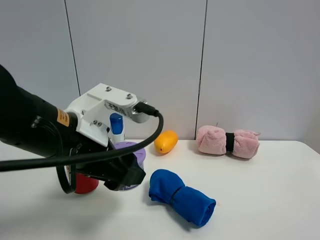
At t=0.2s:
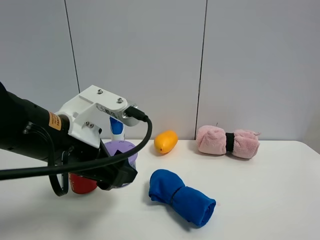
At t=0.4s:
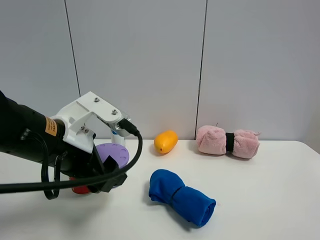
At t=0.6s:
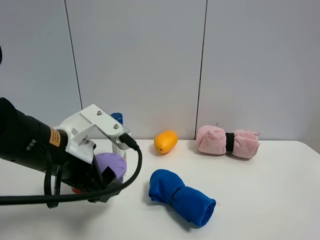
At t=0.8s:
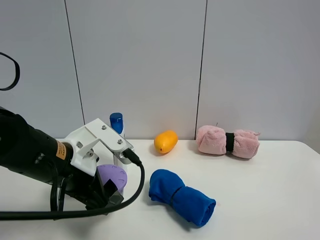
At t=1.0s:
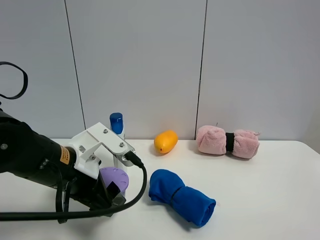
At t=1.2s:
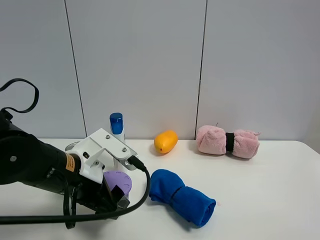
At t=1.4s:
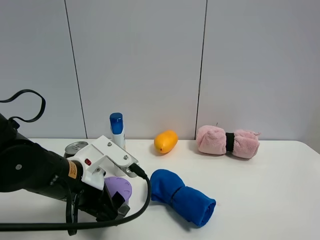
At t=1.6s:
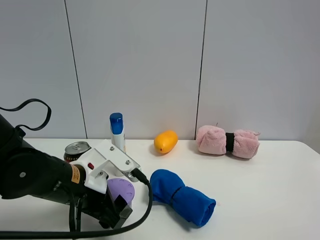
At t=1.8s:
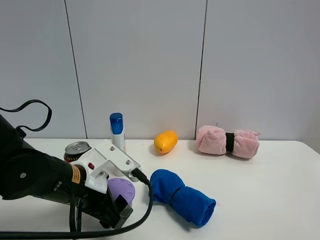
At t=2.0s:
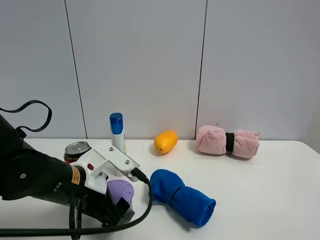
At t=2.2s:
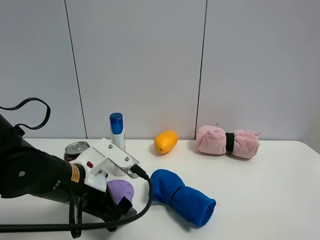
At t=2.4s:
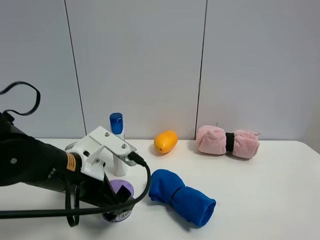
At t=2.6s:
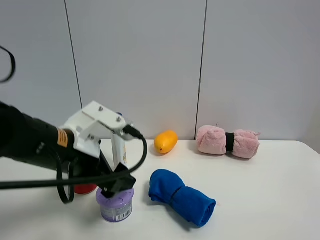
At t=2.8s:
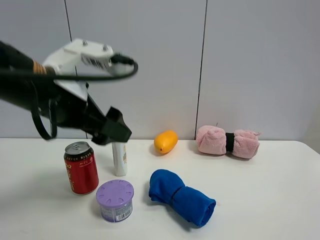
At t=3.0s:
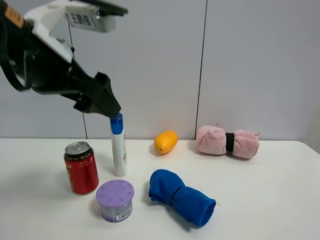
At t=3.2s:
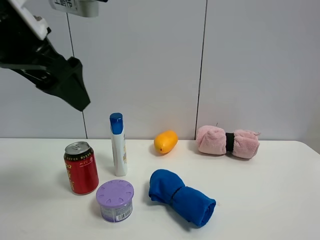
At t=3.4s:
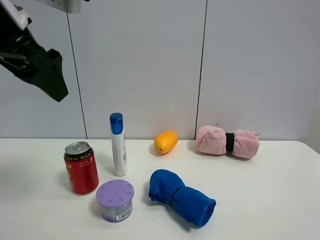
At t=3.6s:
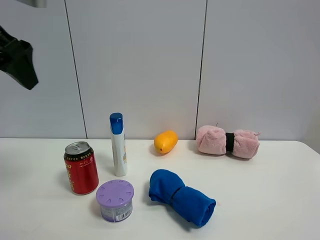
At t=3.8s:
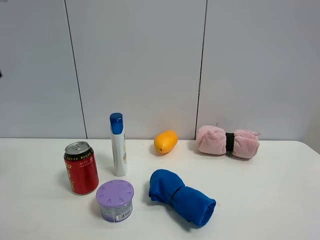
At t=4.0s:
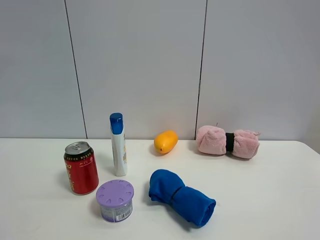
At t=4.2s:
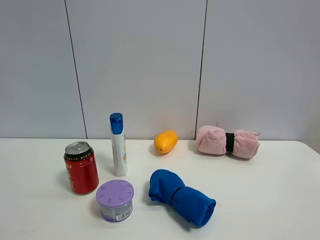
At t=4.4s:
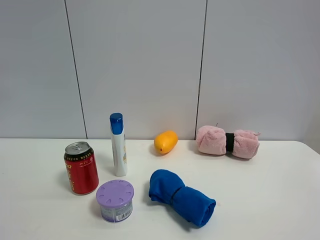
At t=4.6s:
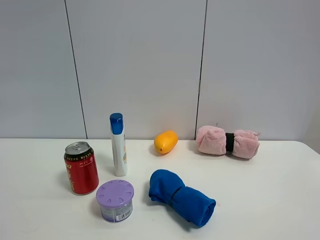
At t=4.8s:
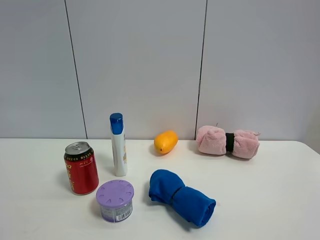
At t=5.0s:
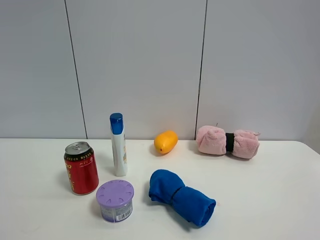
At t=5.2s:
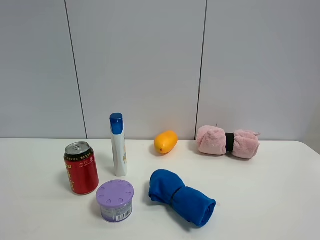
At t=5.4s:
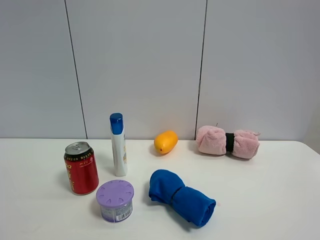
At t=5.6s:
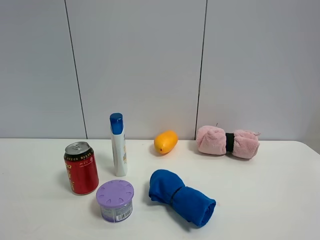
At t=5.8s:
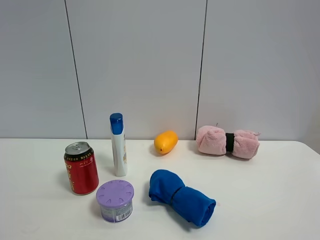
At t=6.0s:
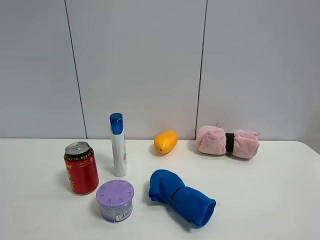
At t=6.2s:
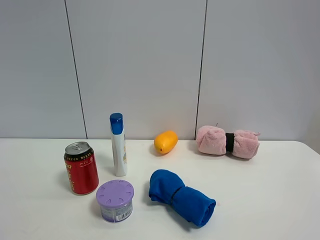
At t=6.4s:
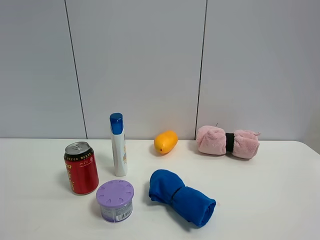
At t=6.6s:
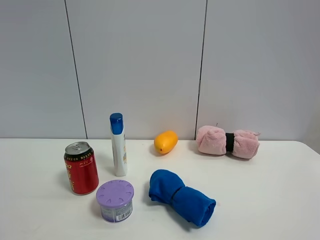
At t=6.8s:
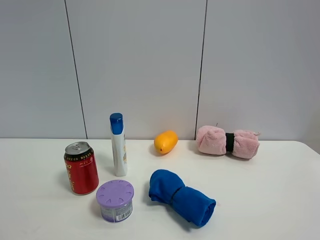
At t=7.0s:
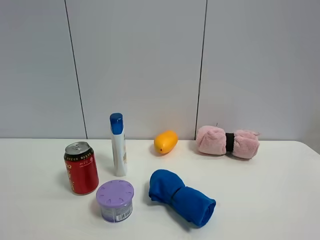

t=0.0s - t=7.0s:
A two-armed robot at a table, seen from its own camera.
Task of the whole recording: the gripper move the object.
Step, t=0.0s - t=2.4s: Place the Incense box on the table with the left gripper.
t=0.0s - t=1.4s: The left gripper moves downward, approximately 10 cm.
t=1.4s - t=2.8s: The left gripper is displaced upward by roughly 15 cm, and opens its fingers.
t=2.8s - t=4.2s: The left gripper travels to the left, upward and backward by about 25 cm.
t=5.6s - t=7.0s: Neither gripper changes place.

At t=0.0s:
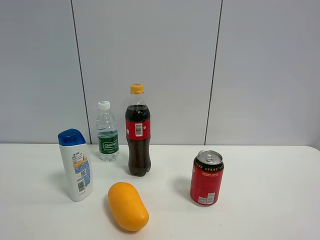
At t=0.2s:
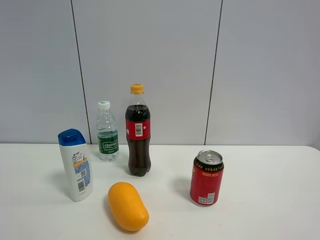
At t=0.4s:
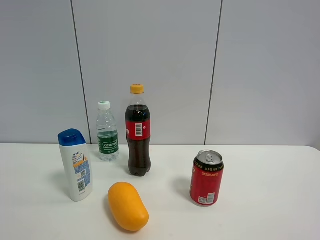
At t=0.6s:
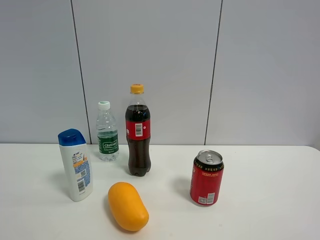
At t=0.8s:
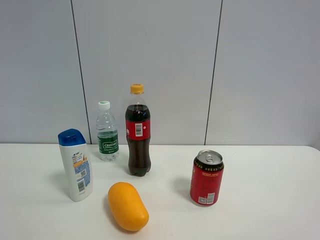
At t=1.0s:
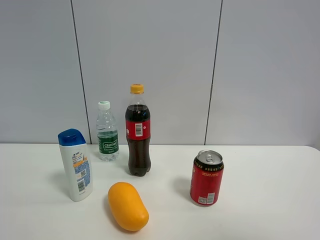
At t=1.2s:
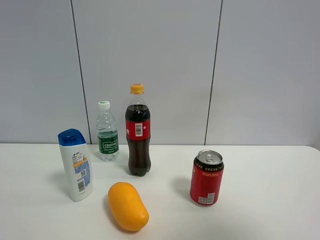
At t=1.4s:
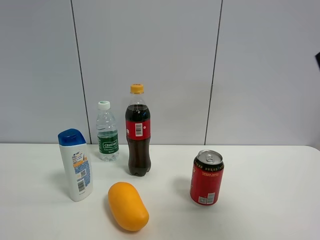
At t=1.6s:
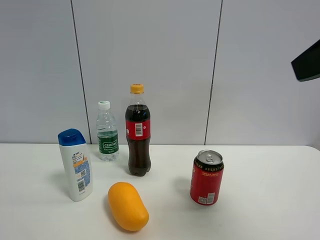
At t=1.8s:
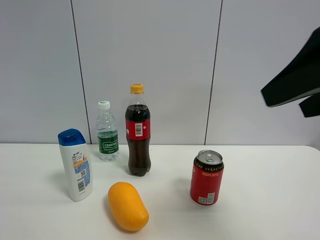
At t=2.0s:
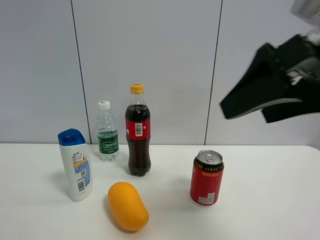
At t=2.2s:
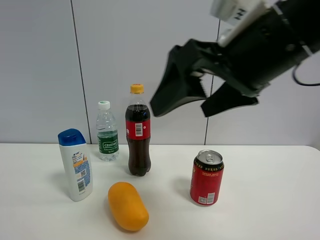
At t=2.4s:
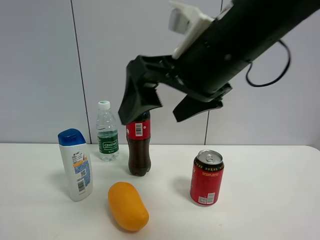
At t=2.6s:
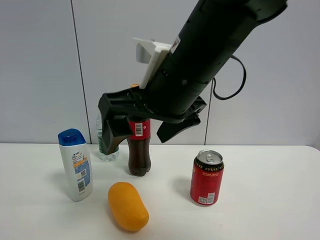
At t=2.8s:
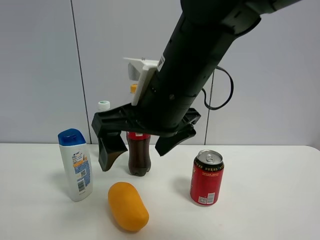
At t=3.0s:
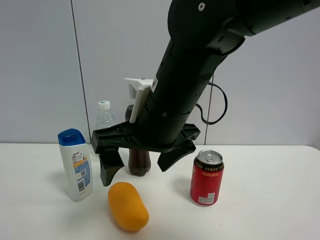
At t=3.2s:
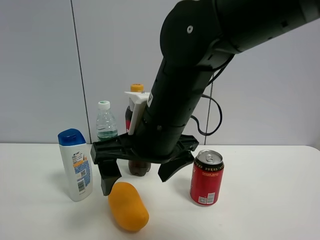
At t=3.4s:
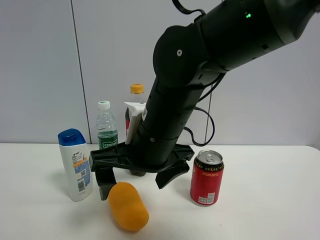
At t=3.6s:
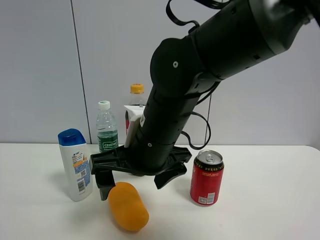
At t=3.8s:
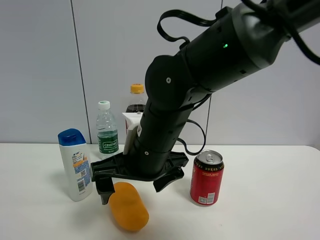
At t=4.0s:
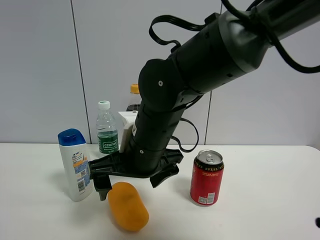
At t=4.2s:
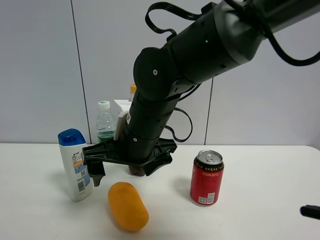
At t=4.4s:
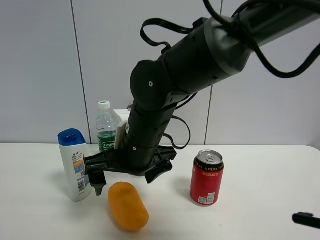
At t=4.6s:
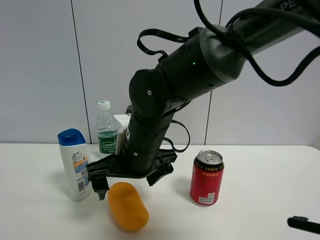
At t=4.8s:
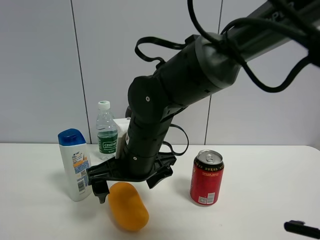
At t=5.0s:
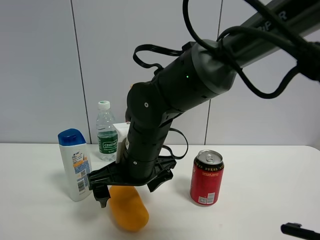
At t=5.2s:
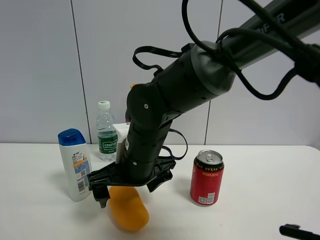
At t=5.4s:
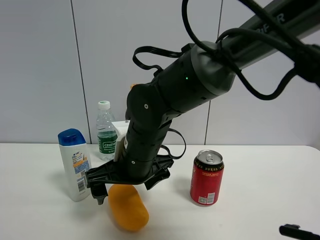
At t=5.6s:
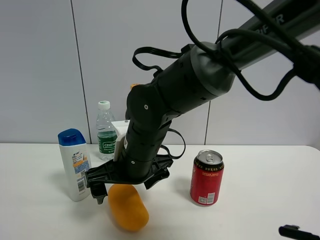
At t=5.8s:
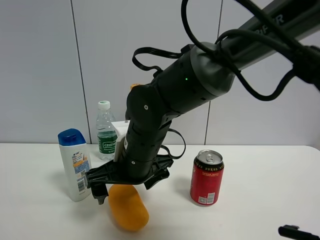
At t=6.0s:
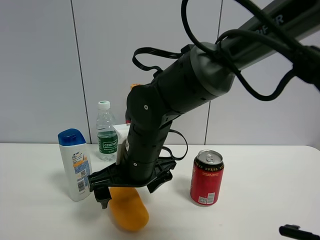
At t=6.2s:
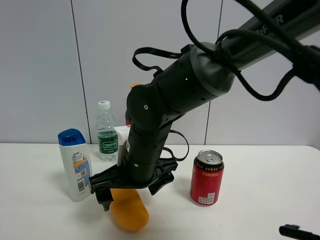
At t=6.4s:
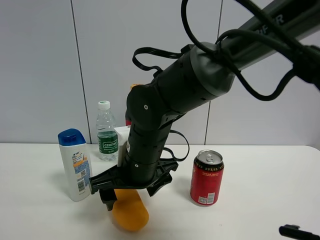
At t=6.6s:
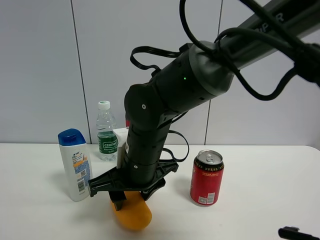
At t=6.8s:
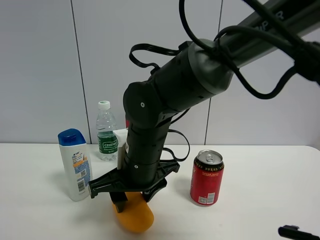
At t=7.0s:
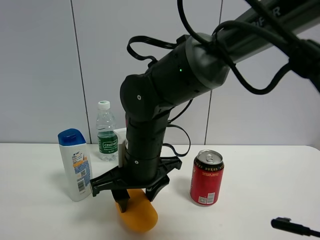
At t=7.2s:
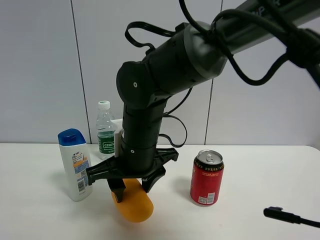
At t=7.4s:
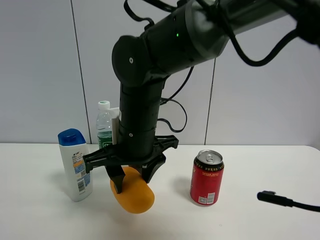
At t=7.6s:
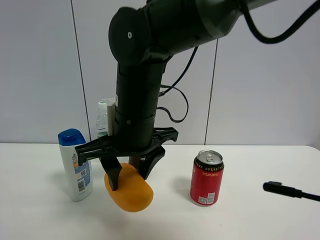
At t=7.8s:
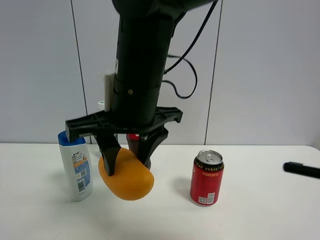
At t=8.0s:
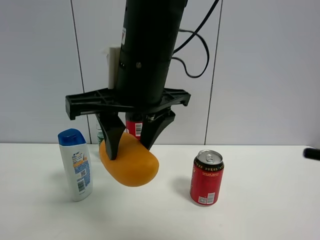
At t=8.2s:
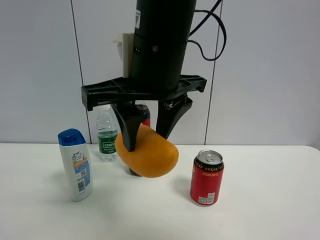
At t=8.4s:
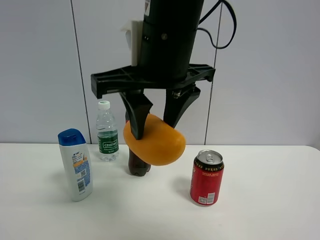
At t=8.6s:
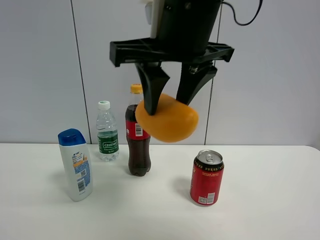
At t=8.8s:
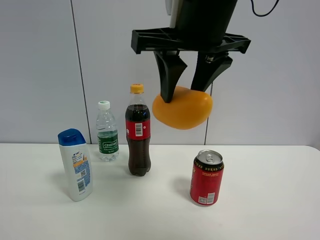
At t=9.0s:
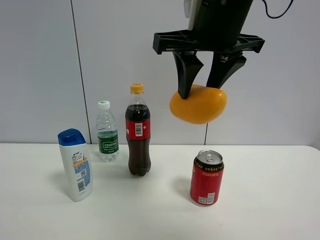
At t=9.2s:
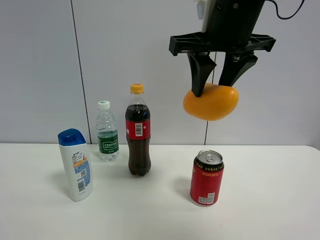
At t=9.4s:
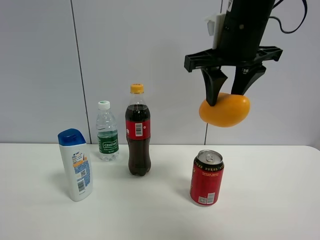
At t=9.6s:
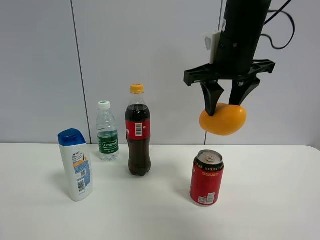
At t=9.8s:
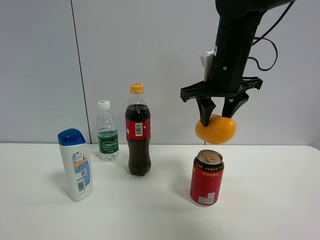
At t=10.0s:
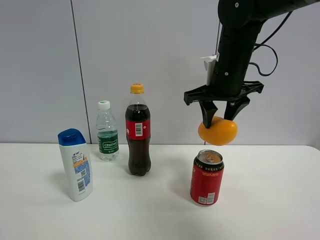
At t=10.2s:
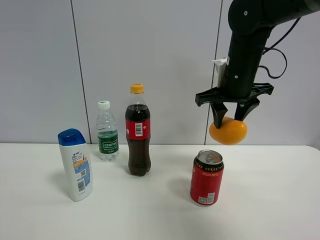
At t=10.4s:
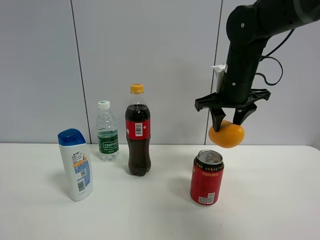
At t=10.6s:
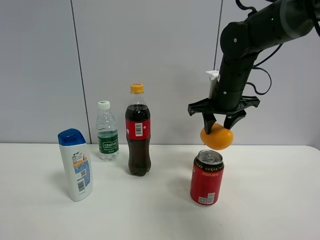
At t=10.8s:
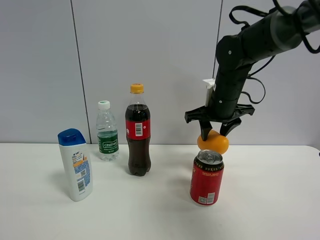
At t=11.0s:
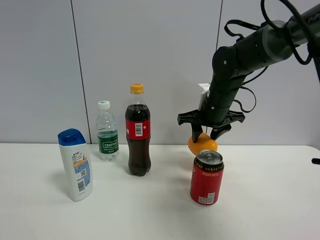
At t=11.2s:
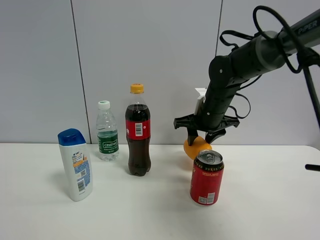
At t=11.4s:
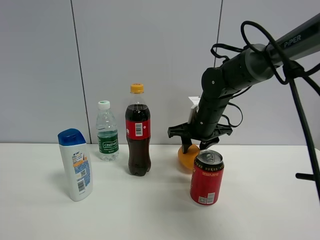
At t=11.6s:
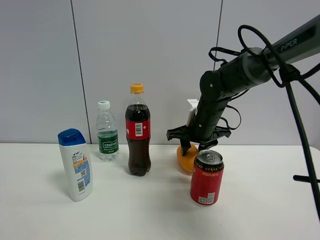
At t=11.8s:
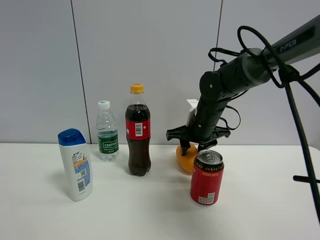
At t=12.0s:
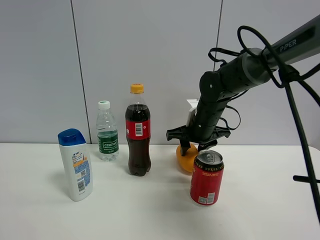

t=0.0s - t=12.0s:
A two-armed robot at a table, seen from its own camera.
Task of the whole recording: the gripper move the object.
Step, t=0.0s - t=6.6s: Grasp the mango with the right gripper.
t=0.0s - t=1.6s: The right gripper goes roughly 15 cm forward.
t=1.6s - t=3.0s: The right gripper travels to the left and downward by some 25 cm.
t=3.0s - t=4.4s: The right gripper shifts roughly 5 cm downward.
t=4.4s - t=6.0s: The grippers stay close to where they were, moving slightly.
t=6.0s - t=7.6s: The right gripper is displaced upward by some 10 cm, and closes its fingers.
t=7.6s - t=9.0s: The right gripper is displaced upward and to the right by some 20 cm.
t=9.0s - t=10.4s: The right gripper goes some 20 cm forward, downward and to the right.
t=10.4s - t=12.0s: The right gripper shifts about 10 cm downward.

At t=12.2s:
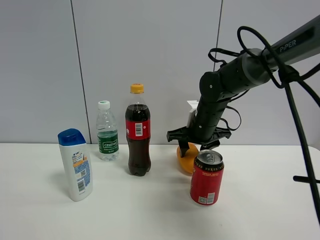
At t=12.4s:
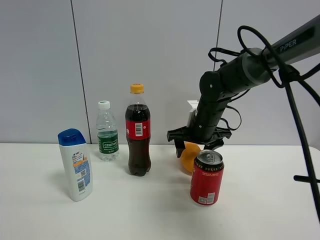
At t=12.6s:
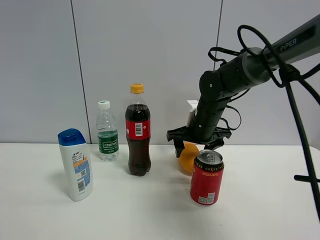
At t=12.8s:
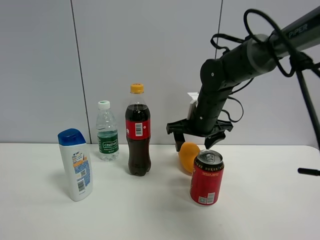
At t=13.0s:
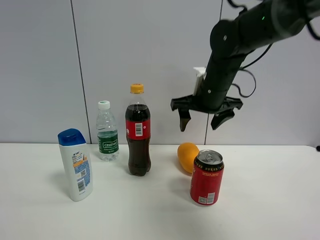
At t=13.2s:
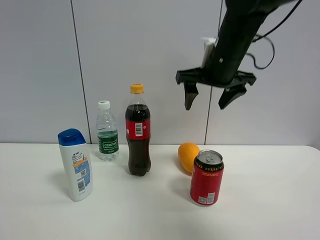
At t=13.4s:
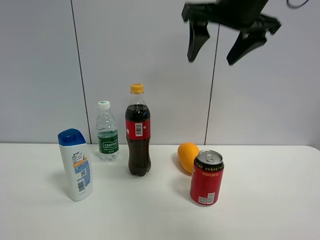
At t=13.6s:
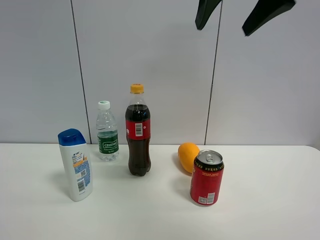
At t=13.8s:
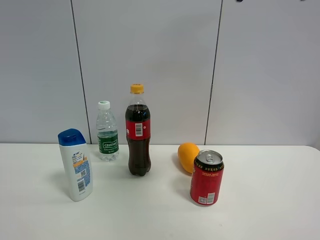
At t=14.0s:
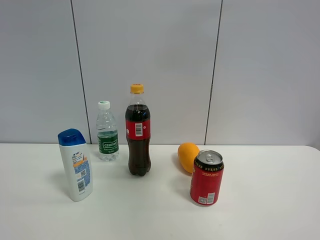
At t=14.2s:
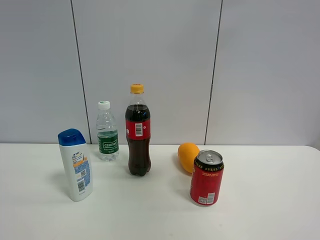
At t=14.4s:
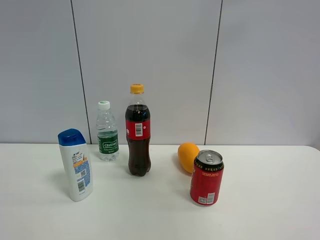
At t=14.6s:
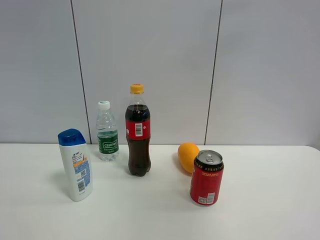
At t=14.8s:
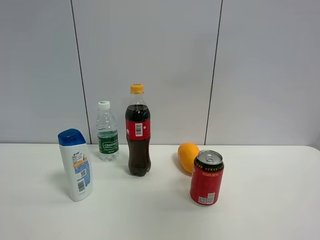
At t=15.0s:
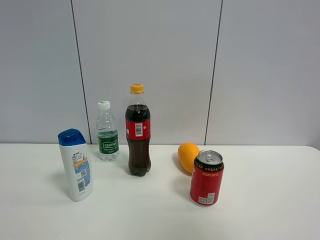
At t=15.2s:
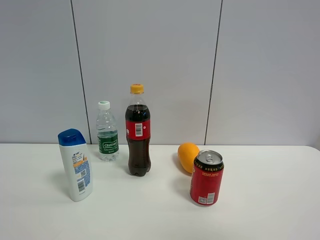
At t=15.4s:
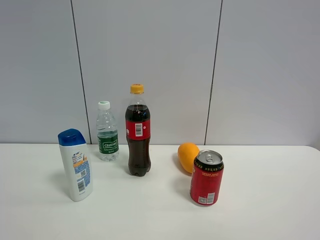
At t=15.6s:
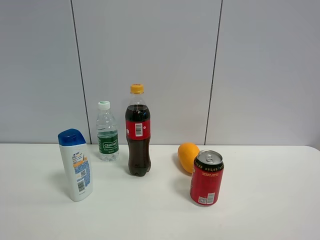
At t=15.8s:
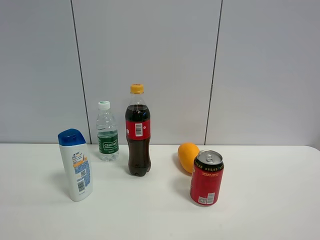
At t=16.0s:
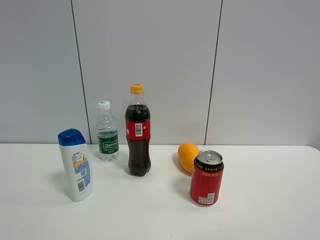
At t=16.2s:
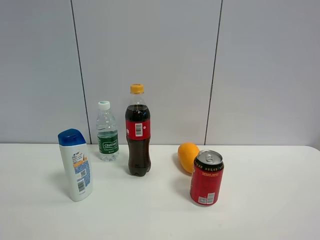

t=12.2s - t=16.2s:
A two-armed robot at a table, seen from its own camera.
Task of the whole recording: the gripper move the object.
t=12.2s - t=13.6s: The right gripper heads upward and backward, covering roughly 35 cm, and opens up.
t=13.6s - t=14.8s: The right gripper is displaced backward and to the right by some 20 cm.
t=14.8s - t=16.2s: The right gripper heads downward and backward, covering approximately 20 cm.
